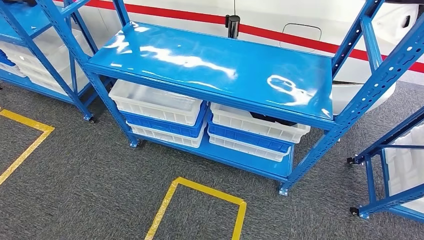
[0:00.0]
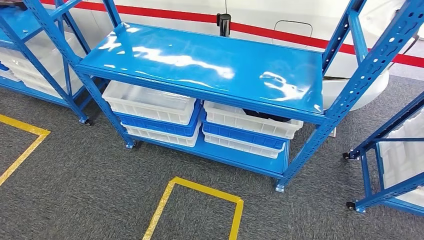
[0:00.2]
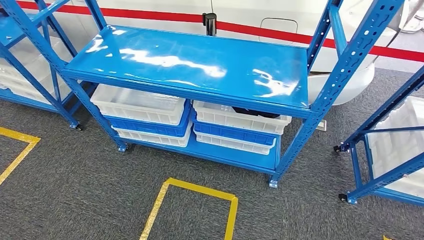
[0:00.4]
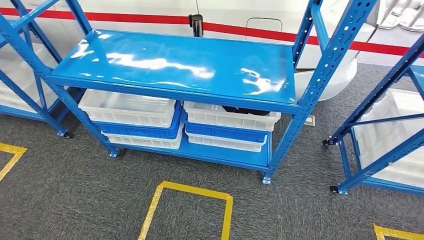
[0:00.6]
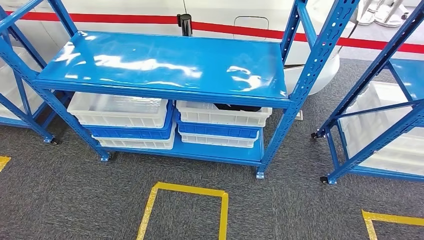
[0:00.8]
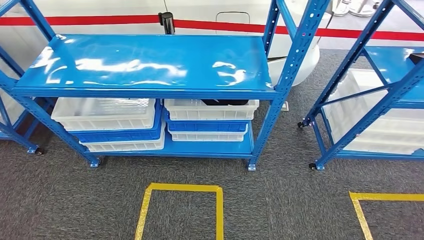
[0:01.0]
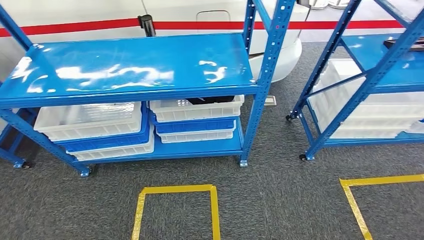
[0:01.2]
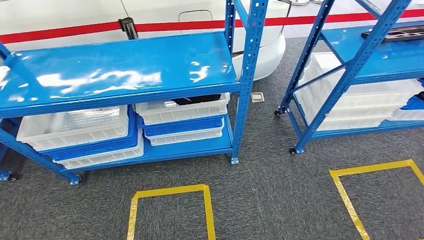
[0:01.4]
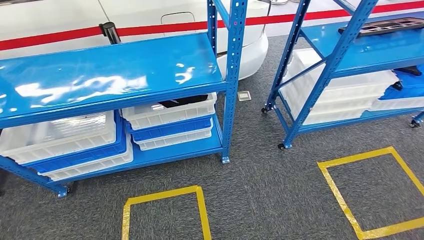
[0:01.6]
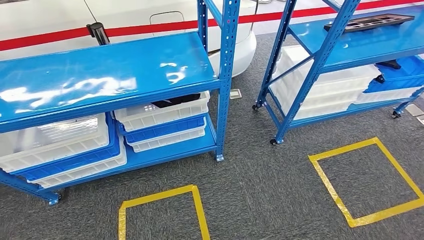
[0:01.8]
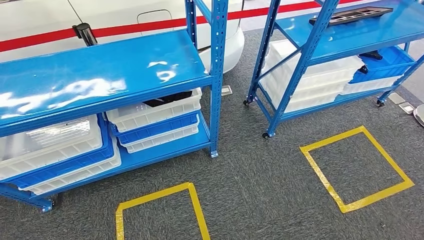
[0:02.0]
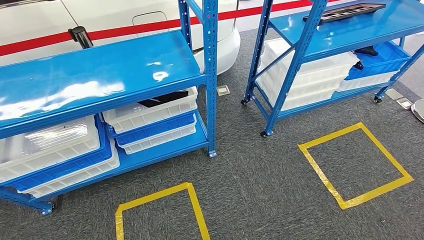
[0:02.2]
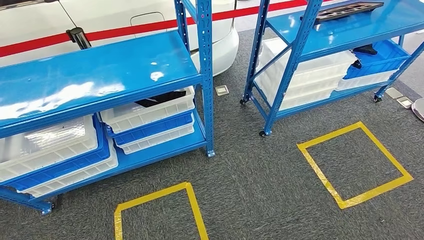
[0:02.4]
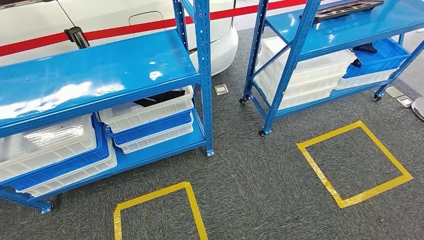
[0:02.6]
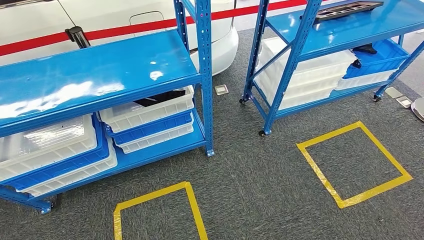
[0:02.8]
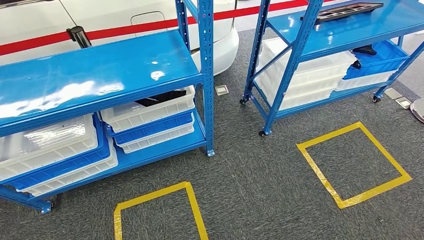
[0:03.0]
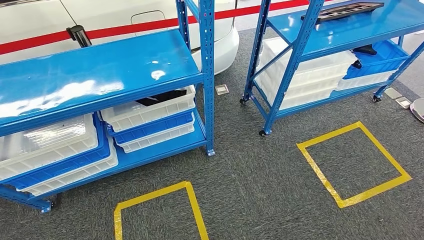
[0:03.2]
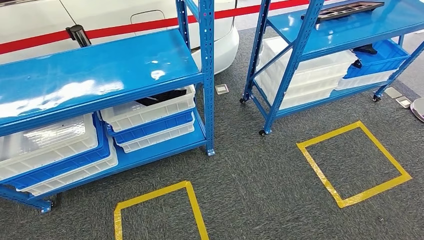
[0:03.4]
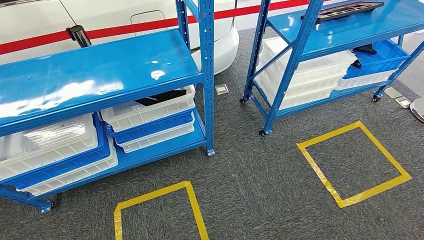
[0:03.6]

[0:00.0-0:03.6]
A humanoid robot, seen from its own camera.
Step, 0:00.0 to 0:03.6: Move to the initial position of the shelf.
